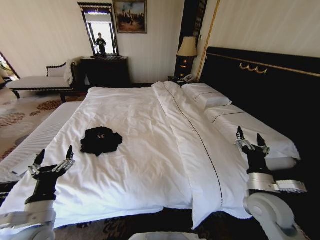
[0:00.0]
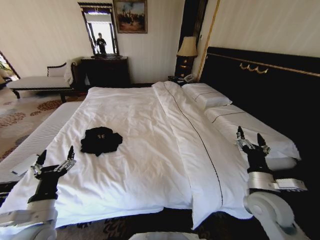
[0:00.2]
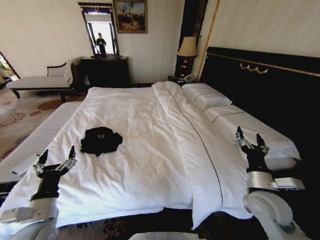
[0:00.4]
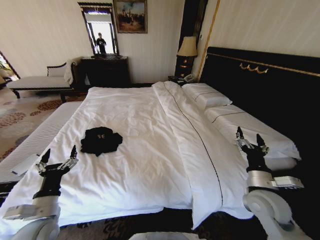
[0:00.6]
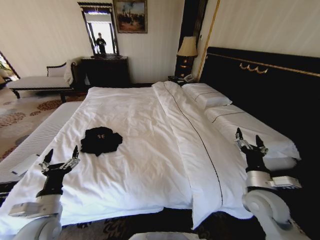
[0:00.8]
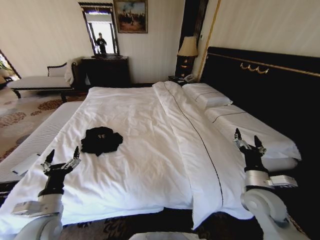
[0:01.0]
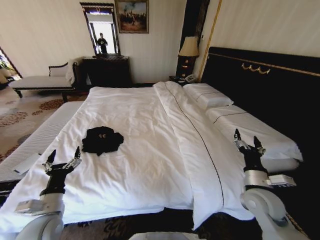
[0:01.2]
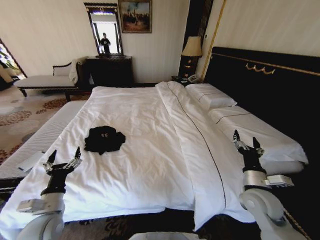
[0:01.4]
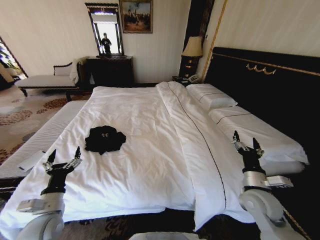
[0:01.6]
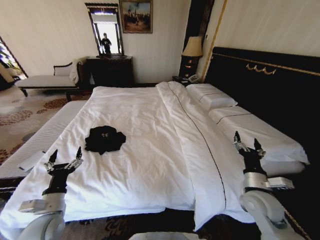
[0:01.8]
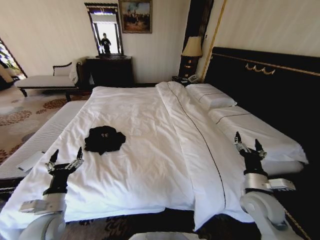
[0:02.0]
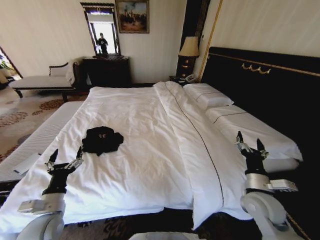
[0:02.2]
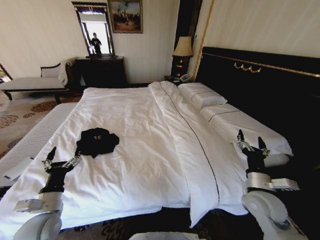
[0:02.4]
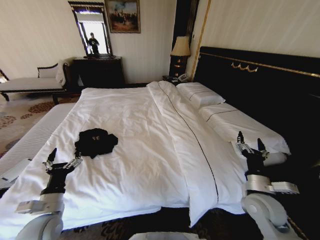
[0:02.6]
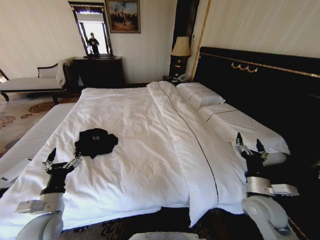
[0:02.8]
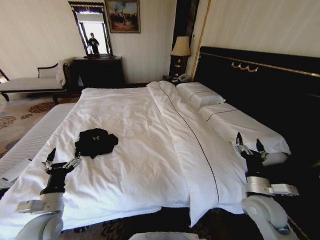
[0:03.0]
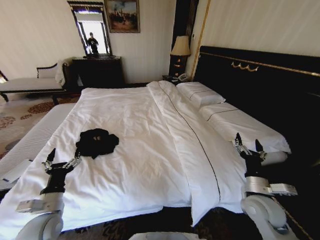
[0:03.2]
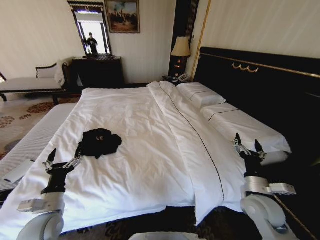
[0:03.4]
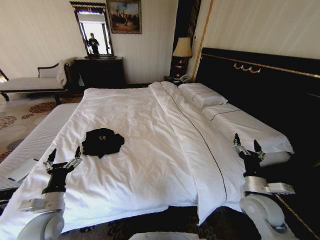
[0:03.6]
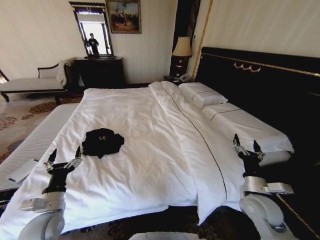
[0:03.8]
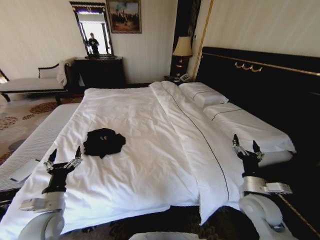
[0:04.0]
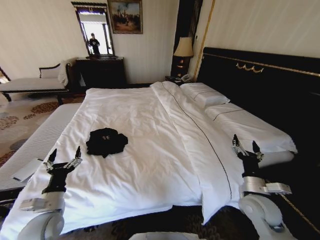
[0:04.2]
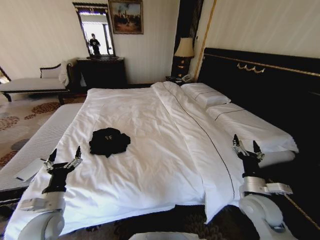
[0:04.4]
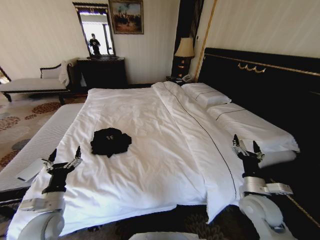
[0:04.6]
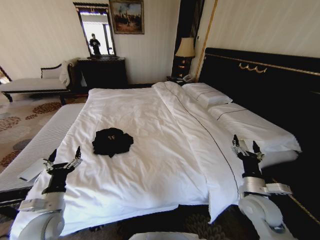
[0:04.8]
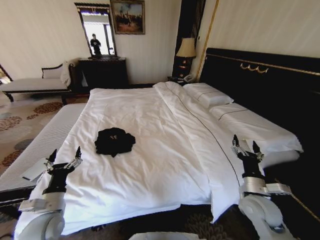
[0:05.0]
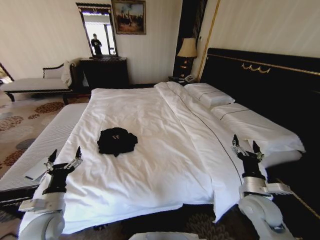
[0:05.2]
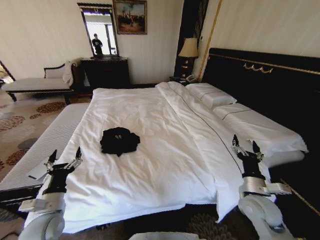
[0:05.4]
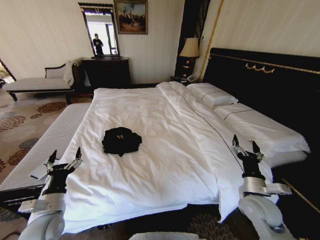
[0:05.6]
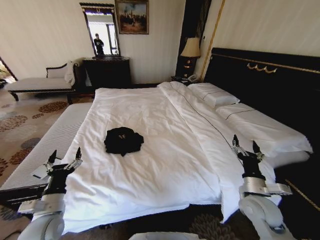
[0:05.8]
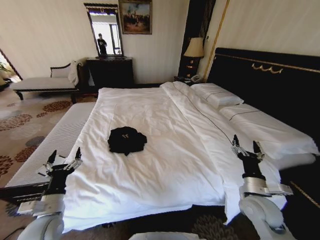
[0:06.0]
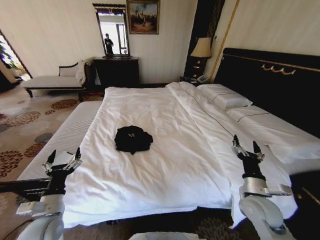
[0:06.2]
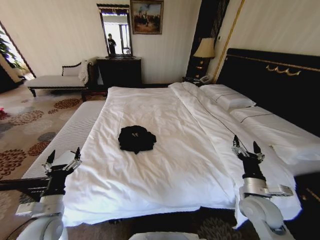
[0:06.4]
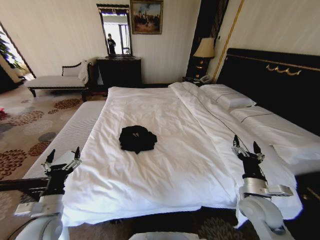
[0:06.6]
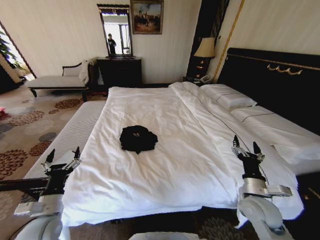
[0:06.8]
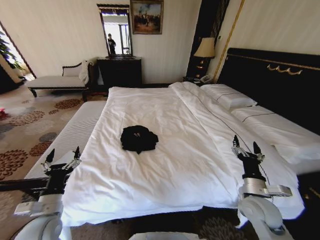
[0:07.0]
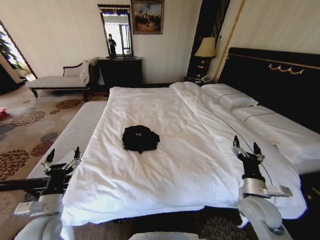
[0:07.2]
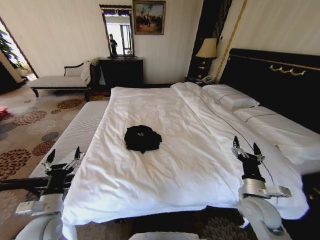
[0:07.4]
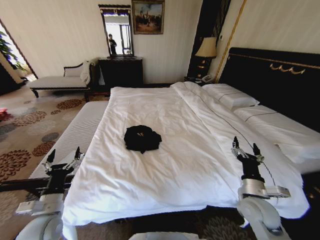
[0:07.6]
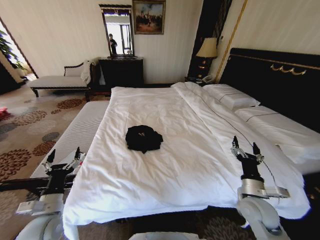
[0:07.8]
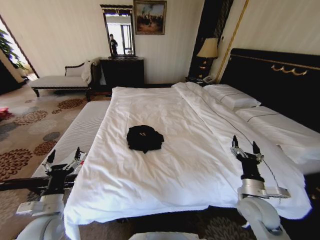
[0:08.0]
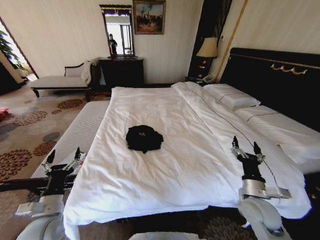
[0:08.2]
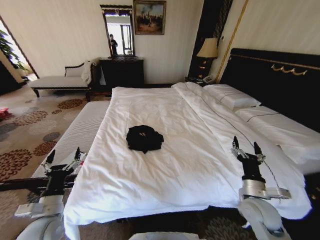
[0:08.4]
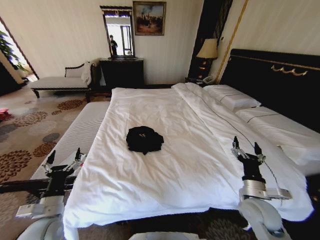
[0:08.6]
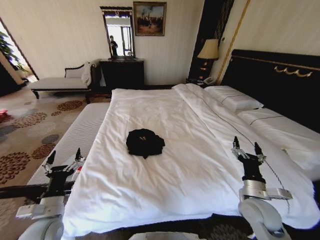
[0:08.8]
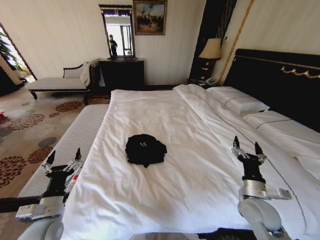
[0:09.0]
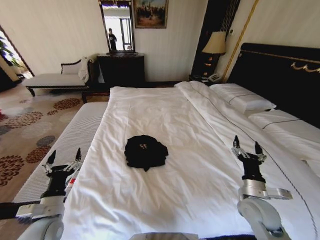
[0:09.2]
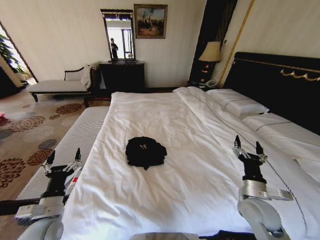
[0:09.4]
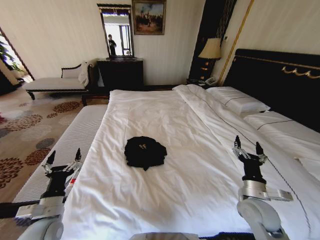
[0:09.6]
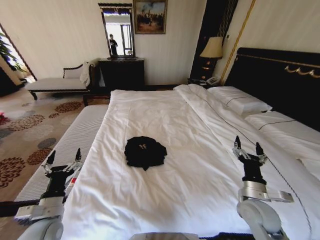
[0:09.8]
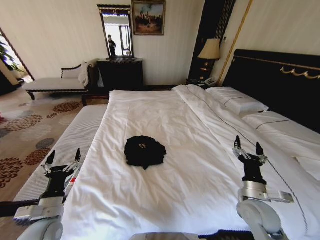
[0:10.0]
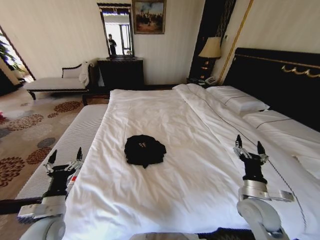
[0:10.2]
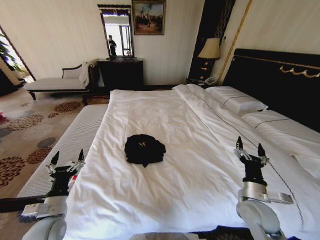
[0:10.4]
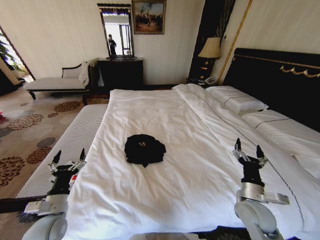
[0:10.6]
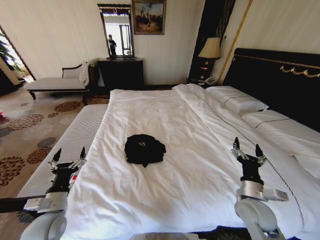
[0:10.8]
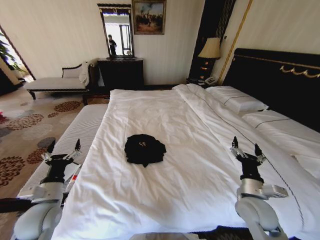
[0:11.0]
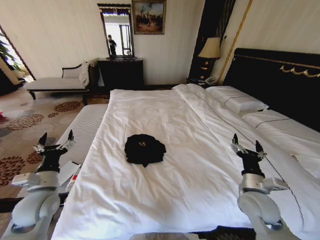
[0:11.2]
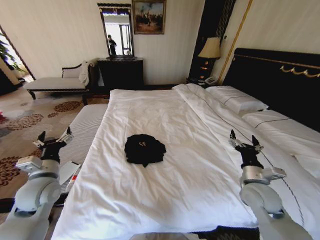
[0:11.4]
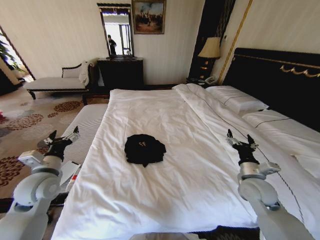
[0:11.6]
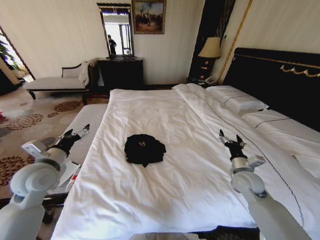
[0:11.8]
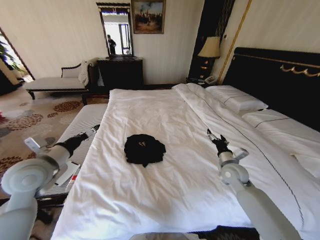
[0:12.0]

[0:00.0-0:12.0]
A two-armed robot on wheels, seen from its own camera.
Task of the whole recording: Fold the clothes on the bed.
0:00.0 to 0:01.6: The left gripper changes place by roughly 5 cm.
0:09.0 to 0:10.4: Neither gripper changes place.
0:10.4 to 0:12.0: The left gripper shifts some 20 cm upward and forward, while the right gripper shifts approximately 15 cm forward.

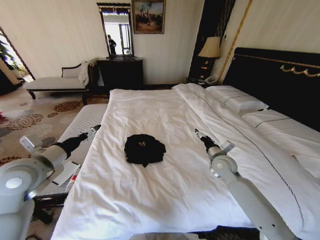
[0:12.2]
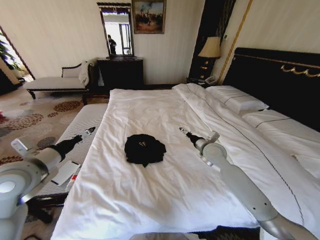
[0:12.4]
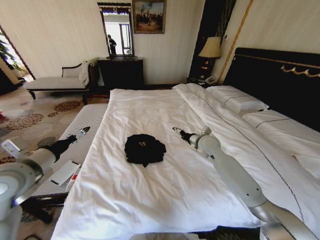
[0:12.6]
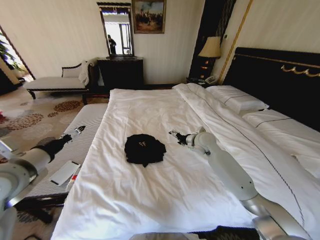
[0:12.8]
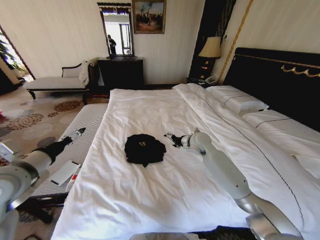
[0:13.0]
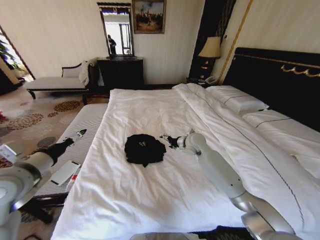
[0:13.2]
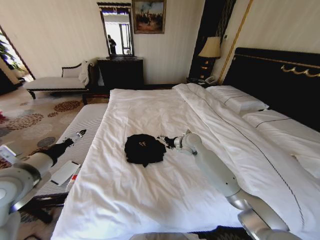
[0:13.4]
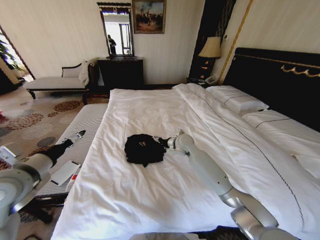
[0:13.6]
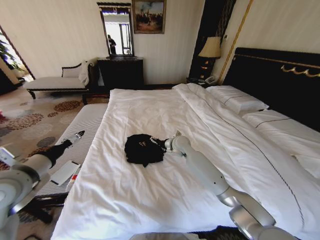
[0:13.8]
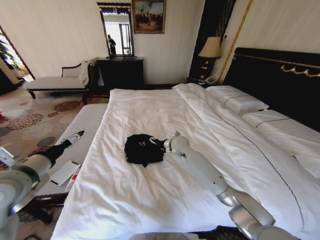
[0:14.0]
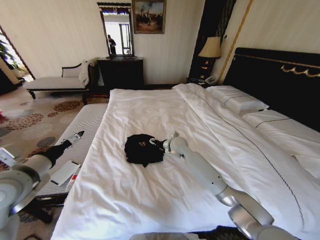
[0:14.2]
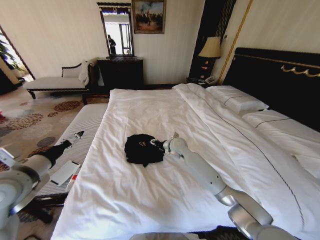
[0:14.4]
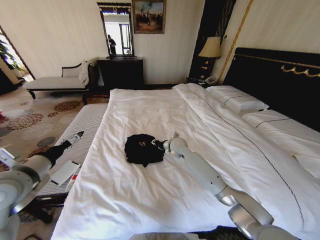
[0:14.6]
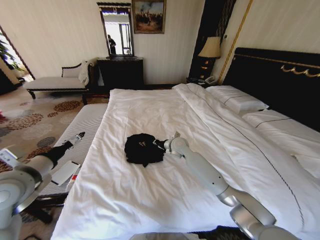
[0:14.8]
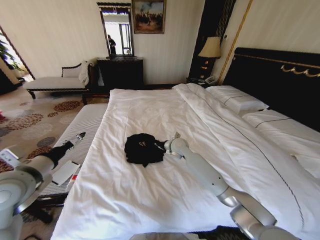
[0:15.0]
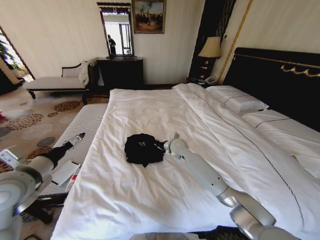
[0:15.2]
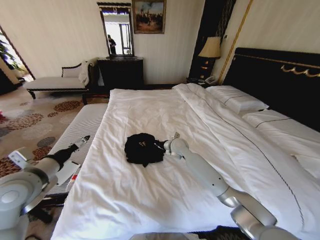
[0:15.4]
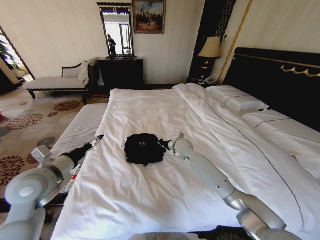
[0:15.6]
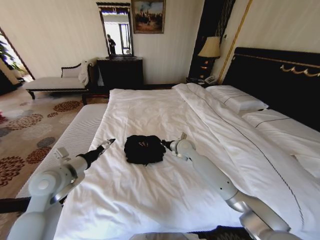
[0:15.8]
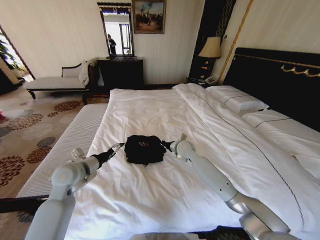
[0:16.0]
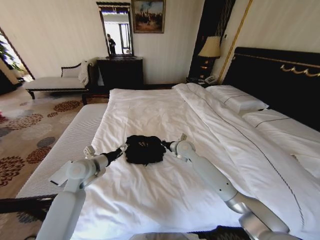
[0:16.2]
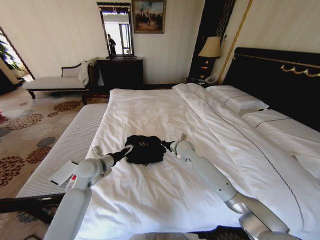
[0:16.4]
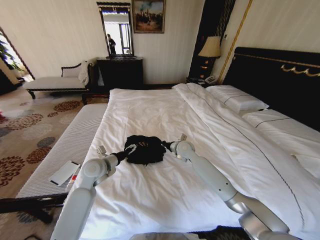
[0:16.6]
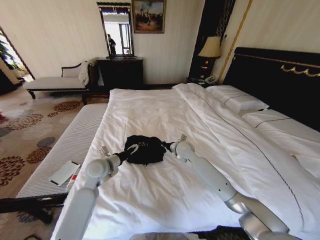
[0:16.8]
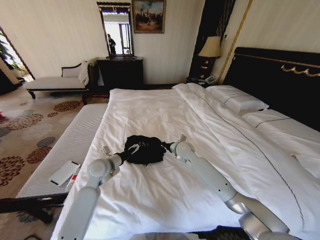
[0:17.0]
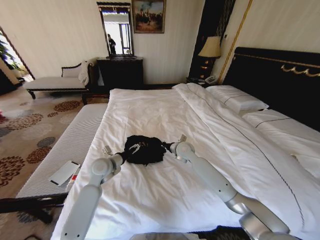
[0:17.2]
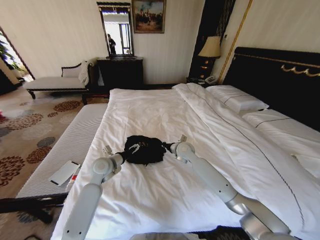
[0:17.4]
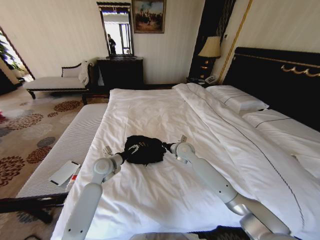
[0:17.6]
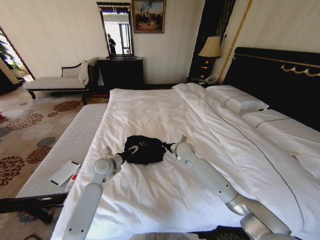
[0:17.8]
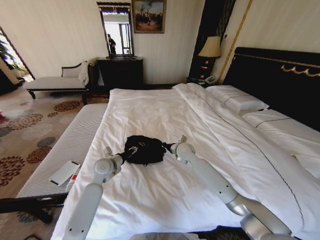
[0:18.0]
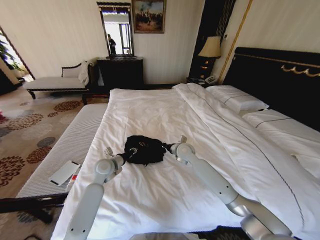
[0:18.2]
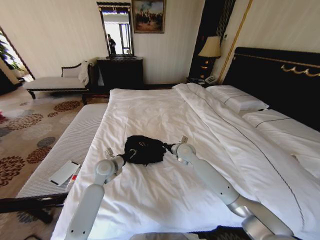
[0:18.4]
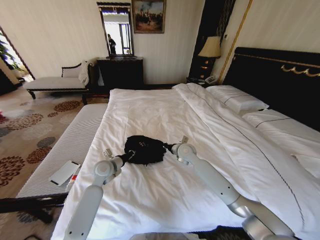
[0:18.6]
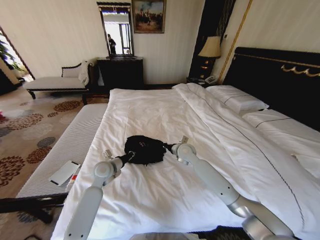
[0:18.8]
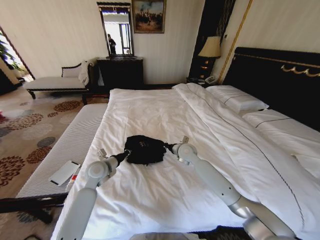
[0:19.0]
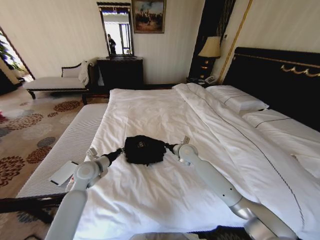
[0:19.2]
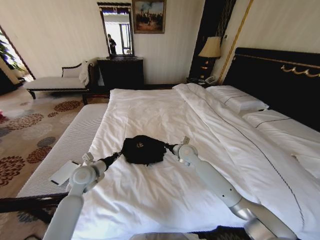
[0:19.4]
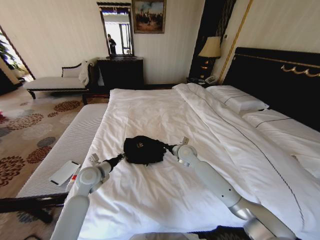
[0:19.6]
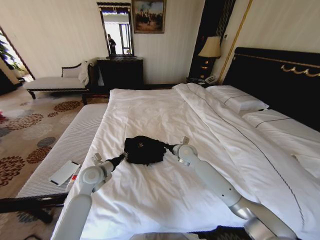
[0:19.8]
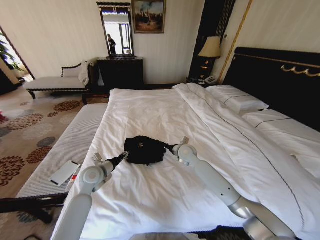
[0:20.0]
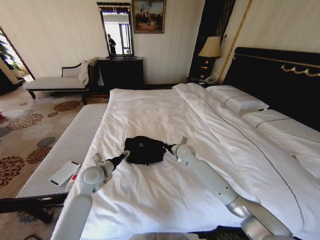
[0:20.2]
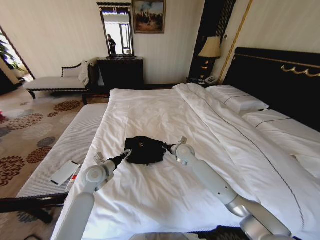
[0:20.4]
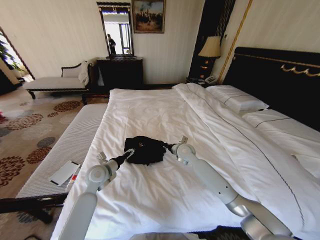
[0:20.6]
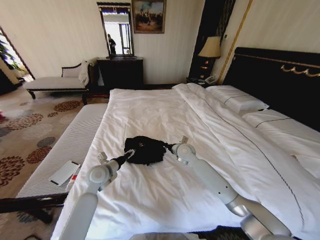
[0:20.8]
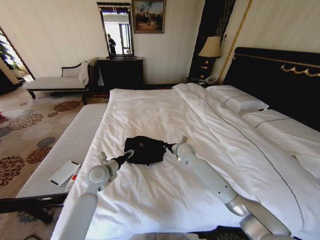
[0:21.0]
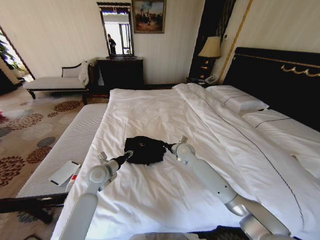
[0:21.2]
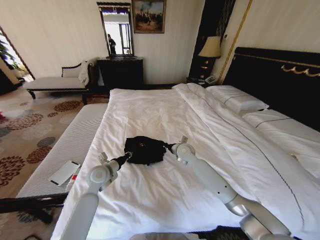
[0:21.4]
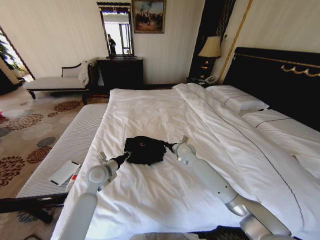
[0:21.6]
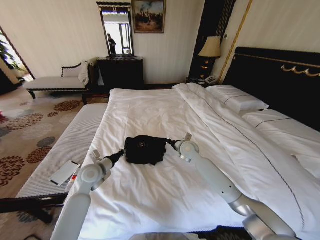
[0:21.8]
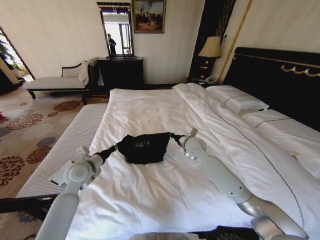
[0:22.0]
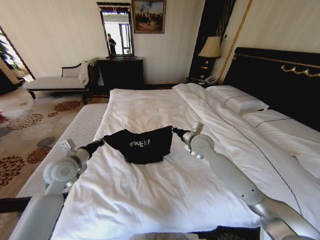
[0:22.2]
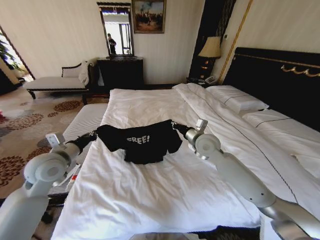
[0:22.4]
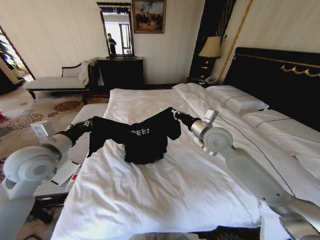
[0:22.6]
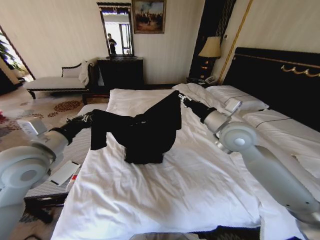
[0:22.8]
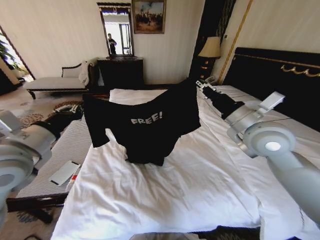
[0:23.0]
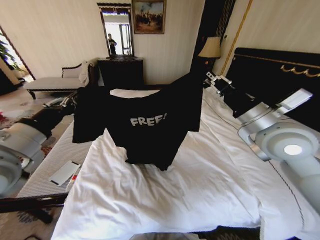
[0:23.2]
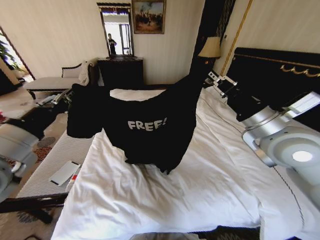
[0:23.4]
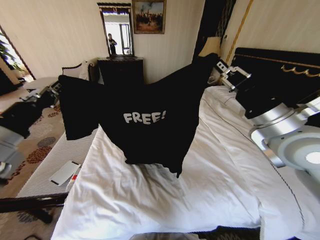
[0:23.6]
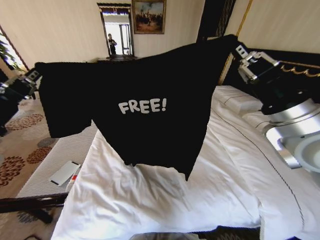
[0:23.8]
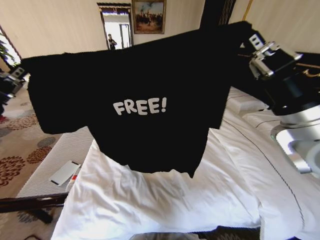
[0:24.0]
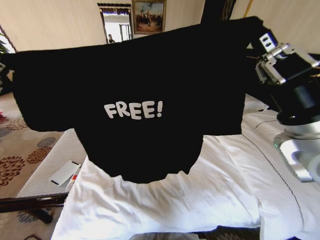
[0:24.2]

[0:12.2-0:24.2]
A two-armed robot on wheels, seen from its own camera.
Task of the whole recording: Fold the clothes on the bed.
0:12.2 to 0:13.8: The right gripper is displaced to the left and forward by approximately 20 cm.
0:13.8 to 0:15.2: The right gripper closes its fingers.
0:15.2 to 0:16.6: The left gripper goes some 20 cm downward, forward and to the right.
0:16.6 to 0:18.2: The left gripper moves about 5 cm, and closes up.
0:19.8 to 0:21.2: The left gripper opens and closes again.
0:21.2 to 0:22.6: The left gripper moves upward and to the left, some 20 cm, while the right gripper heads upward and backward, covering some 20 cm.
0:22.6 to 0:24.2: The right gripper travels backward, upward and to the right by some 20 cm; the left gripper moves backward and upward, roughly 15 cm.
